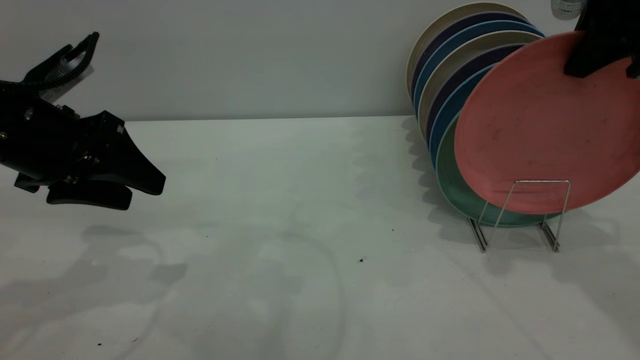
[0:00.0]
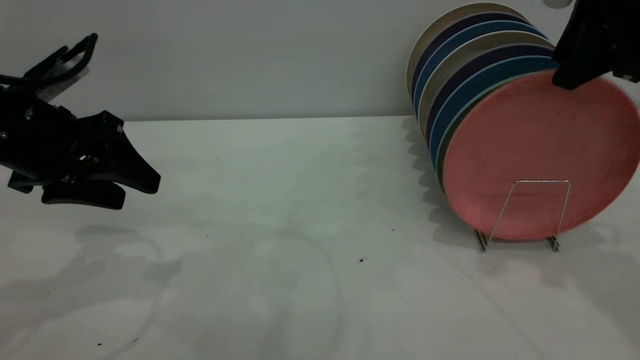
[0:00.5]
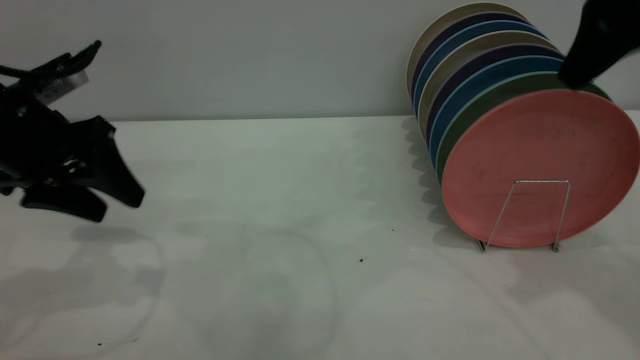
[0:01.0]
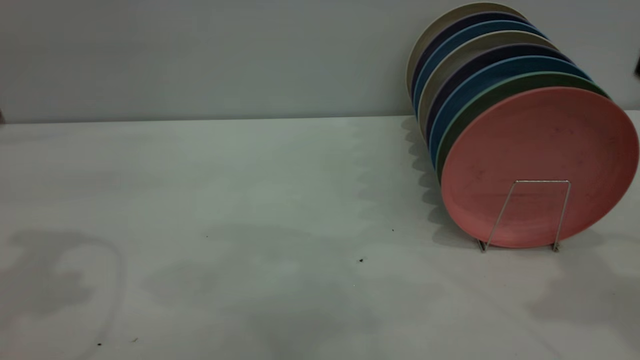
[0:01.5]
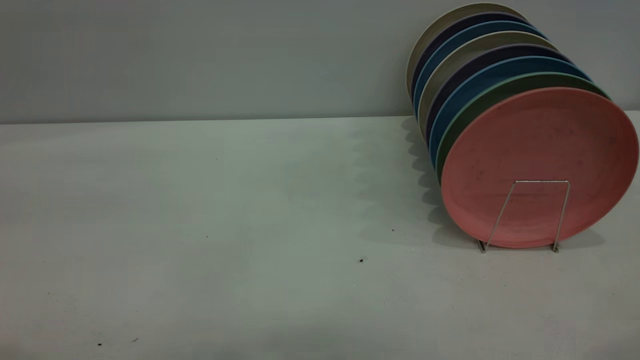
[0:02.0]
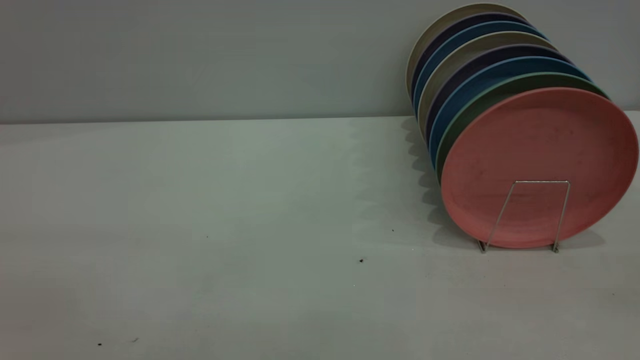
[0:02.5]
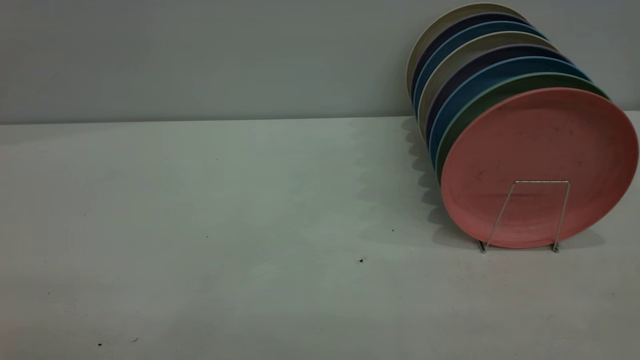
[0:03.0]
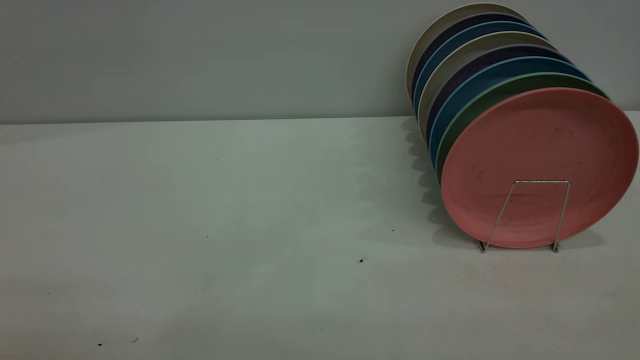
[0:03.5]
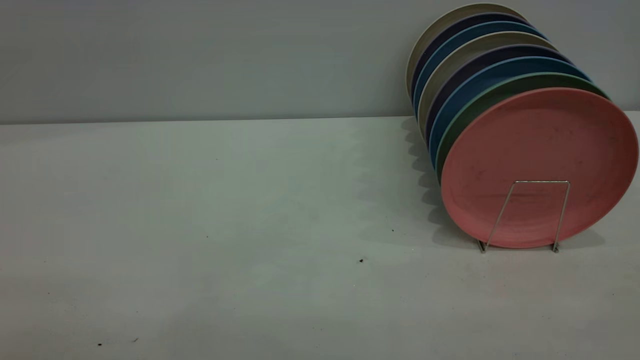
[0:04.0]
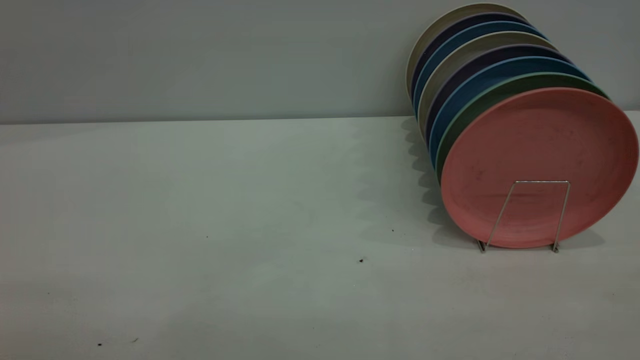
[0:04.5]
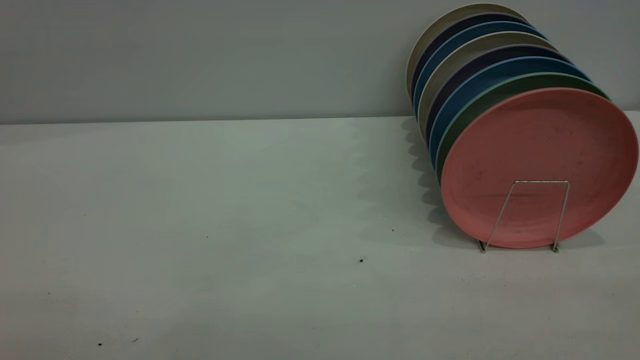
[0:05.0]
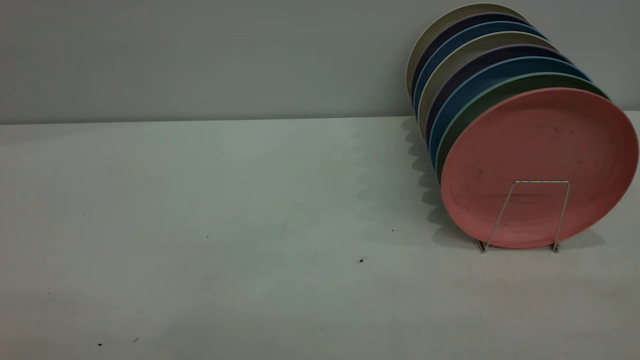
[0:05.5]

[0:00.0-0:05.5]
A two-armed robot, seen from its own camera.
Task of the whole recording: the left gripper grasp the pink plate, the left gripper pass the pink plate to the right gripper, and the right gripper place the pink plate on the plate rack.
0:00.0 to 0:02.0: The left gripper is displaced upward and backward by roughly 30 cm, while the right gripper heads backward and upward, covering approximately 25 cm, and opens.

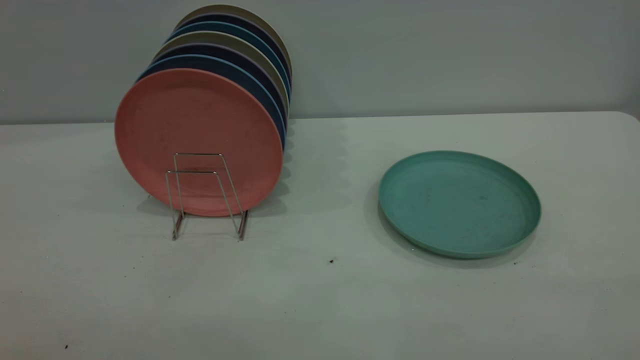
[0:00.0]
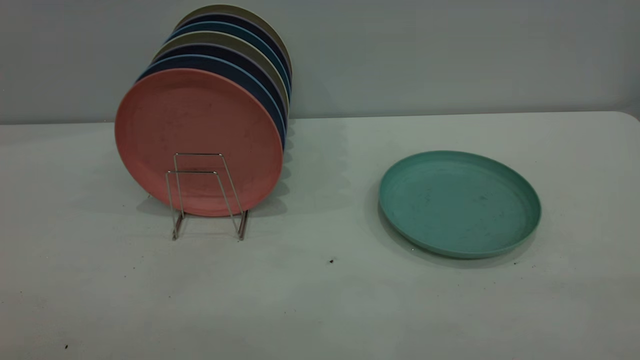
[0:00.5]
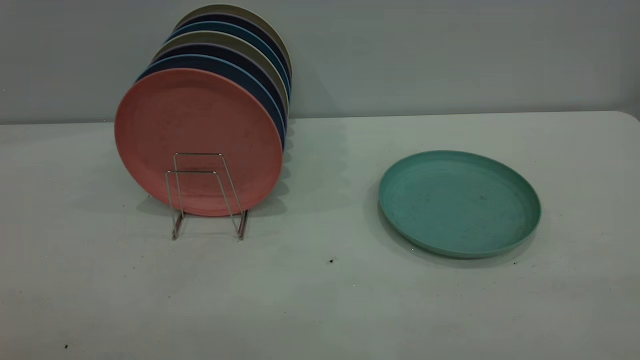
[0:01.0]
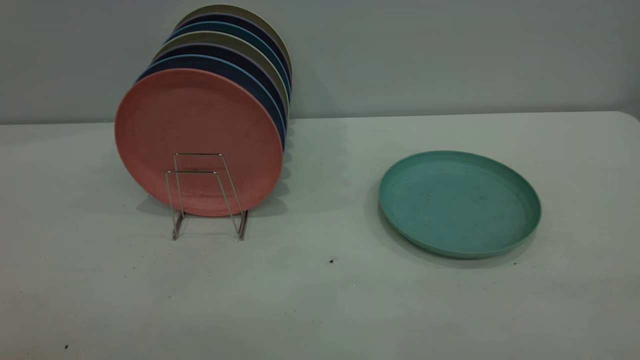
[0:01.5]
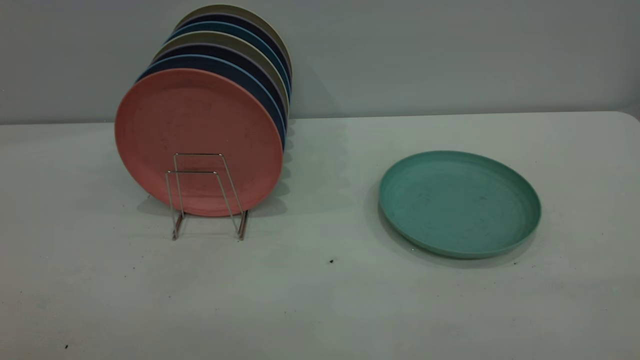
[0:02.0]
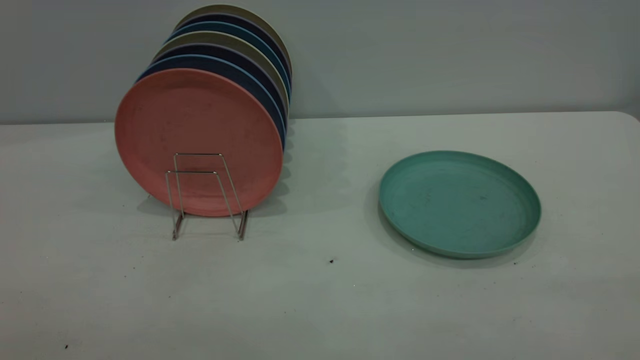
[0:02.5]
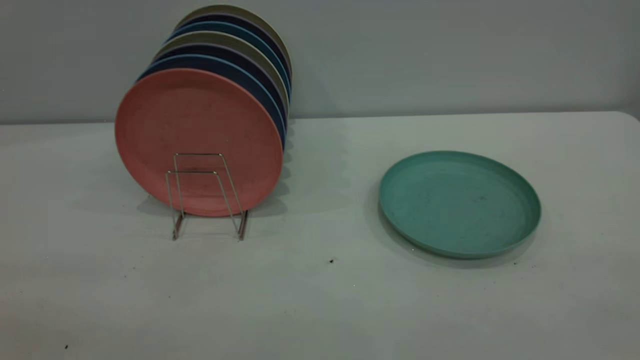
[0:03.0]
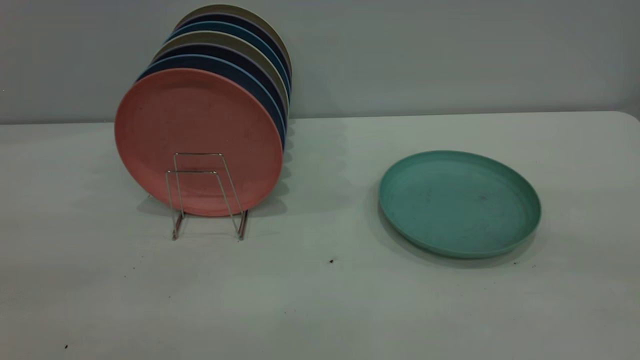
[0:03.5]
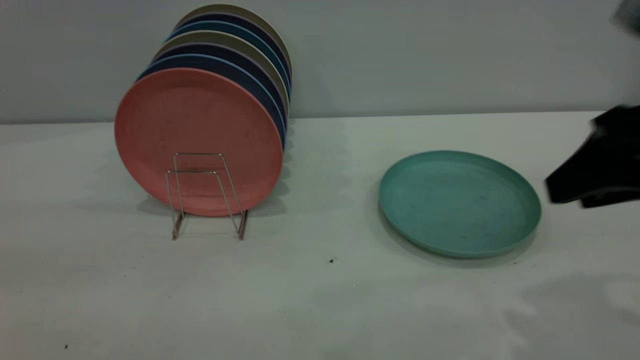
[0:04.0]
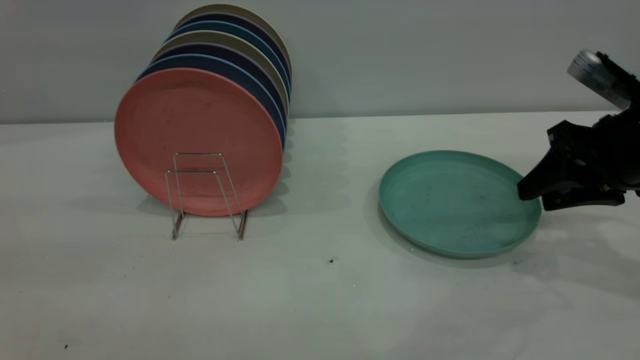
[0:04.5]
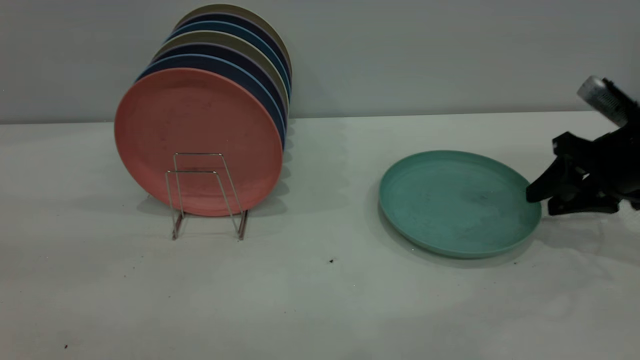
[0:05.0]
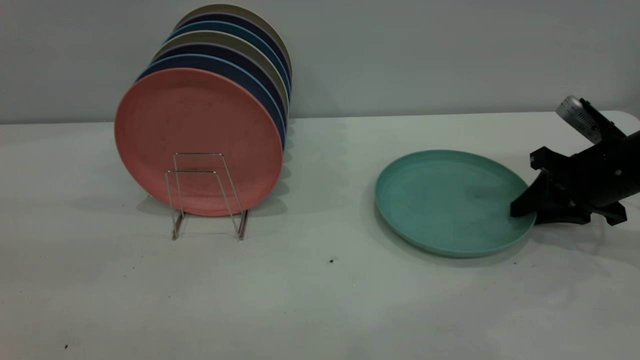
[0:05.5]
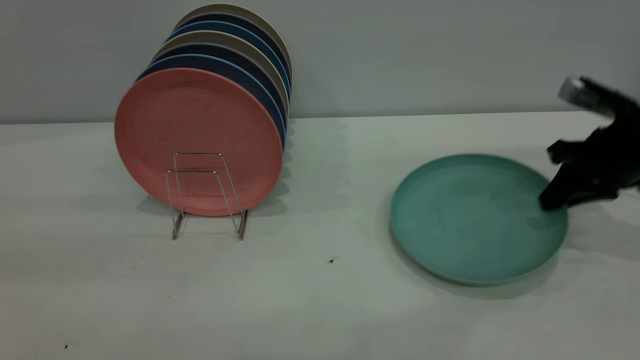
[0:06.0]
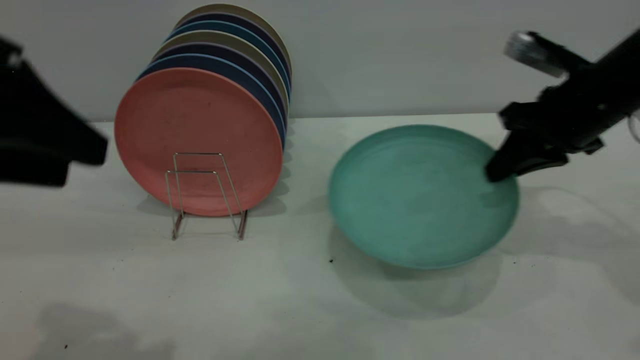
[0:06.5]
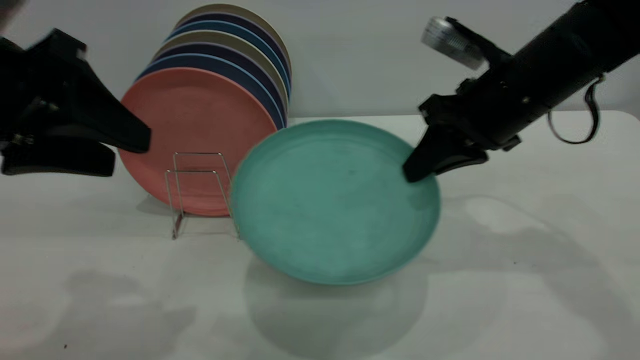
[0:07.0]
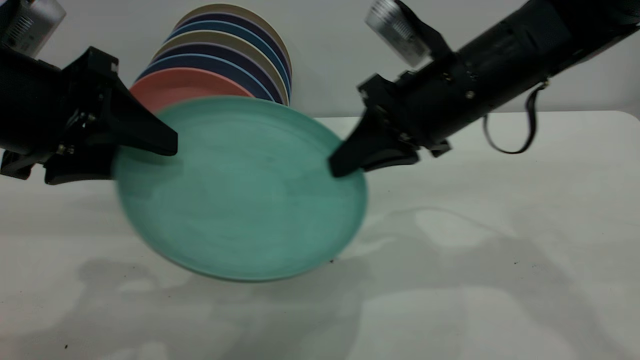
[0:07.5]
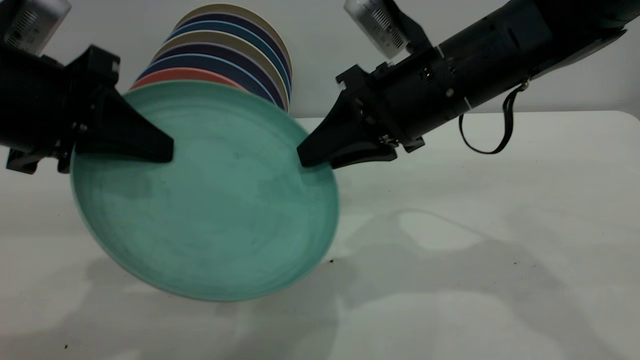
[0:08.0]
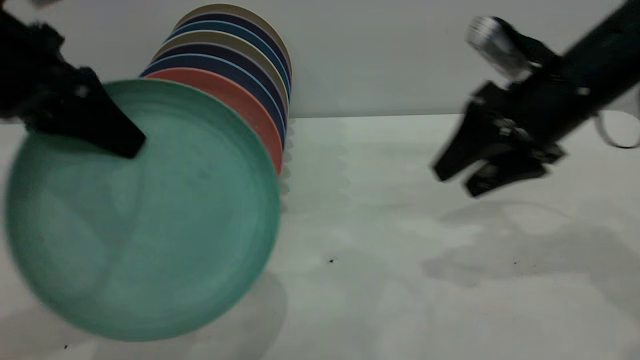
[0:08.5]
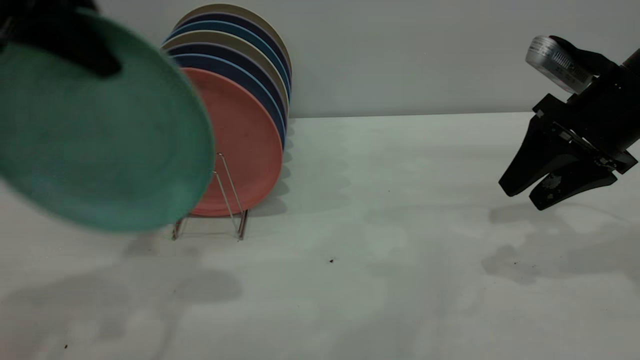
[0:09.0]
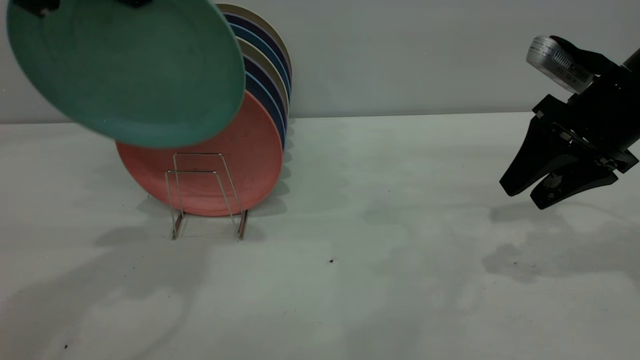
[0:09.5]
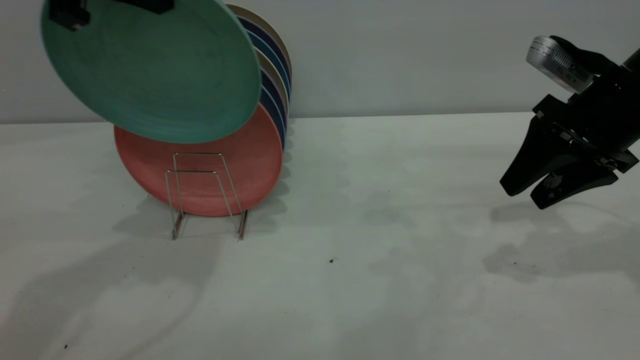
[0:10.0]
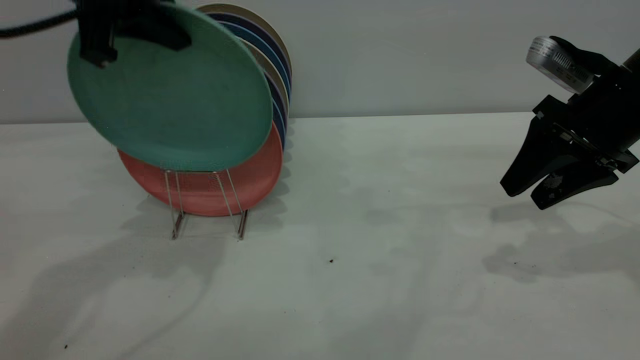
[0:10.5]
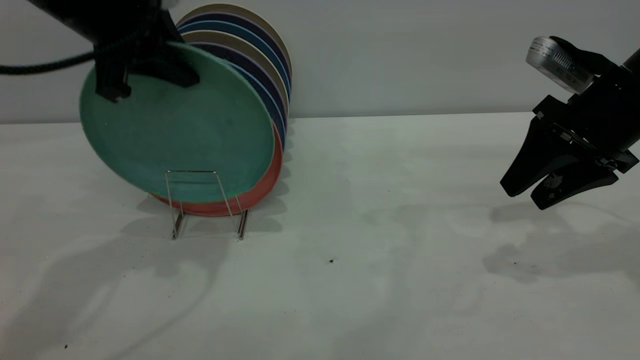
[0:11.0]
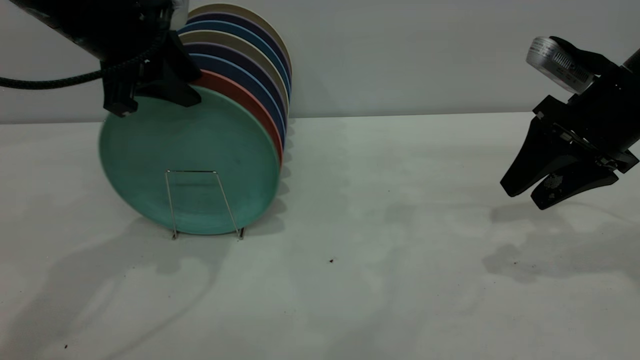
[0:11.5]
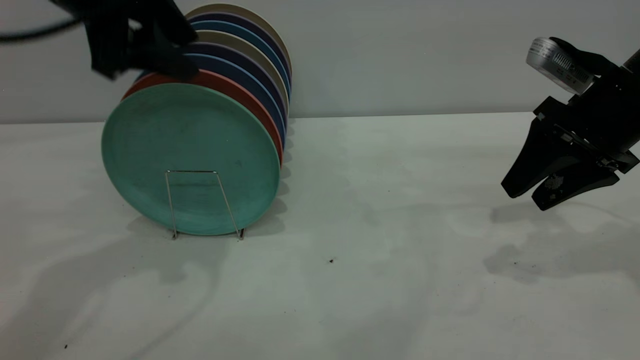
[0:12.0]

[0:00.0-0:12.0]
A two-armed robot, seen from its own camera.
Task of the whole recording: the right gripper grasp the green plate, the right gripper pass the green plate to the left gripper, and the left gripper place the green plate on the plate rack.
Step, 0:00.0 to 0:06.0: Pick up the plate with the right gripper.
Step, 0:06.5 to 0:08.0: Pass the plate from the right gripper to the left gripper.
Step, 0:08.5 to 0:12.0: Place the plate on the shelf.
0:00.0 to 0:02.0: Both grippers stay about where they are.
0:02.0 to 0:04.0: The right gripper travels forward and downward by roughly 30 cm.
0:04.0 to 0:06.0: The right gripper moves forward, downward and to the right, roughly 20 cm, and closes.
0:06.0 to 0:08.0: The left gripper travels forward and downward by approximately 15 cm, and closes its fingers. Meanwhile the right gripper travels to the left by approximately 20 cm, and opens.
0:08.0 to 0:10.0: The right gripper heads to the right, covering roughly 15 cm, and opens its fingers. The left gripper moves upward and forward, about 15 cm.
0:10.0 to 0:12.0: The left gripper opens up.

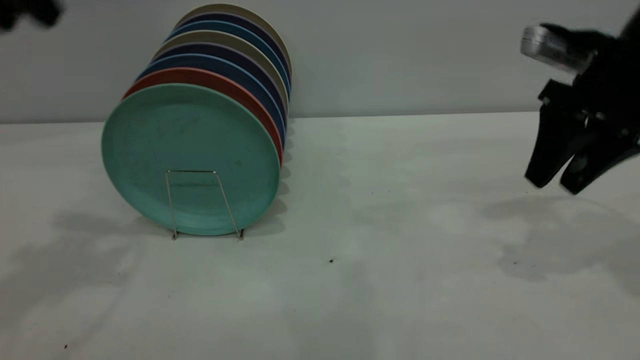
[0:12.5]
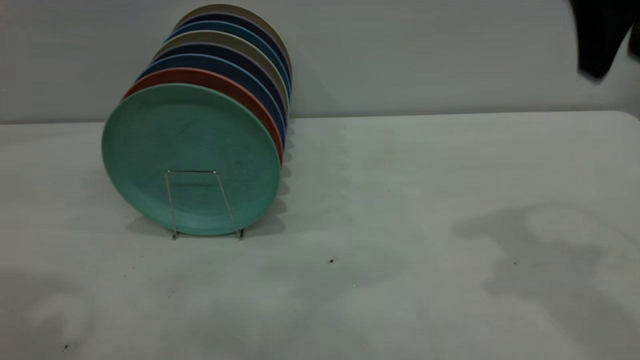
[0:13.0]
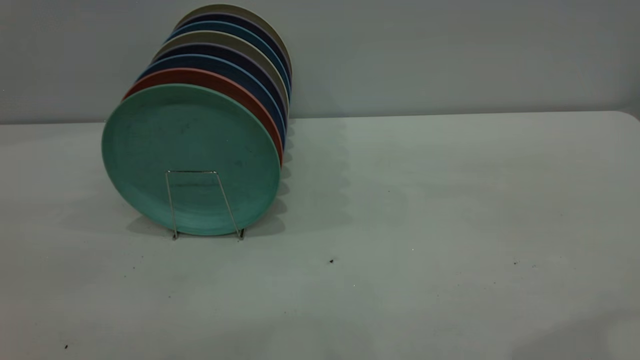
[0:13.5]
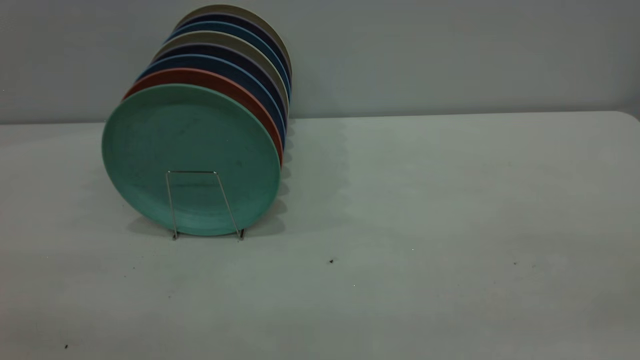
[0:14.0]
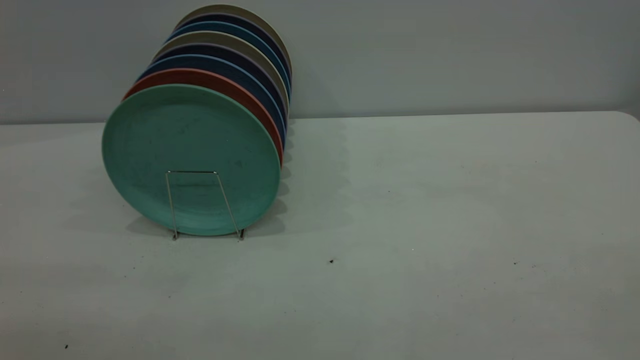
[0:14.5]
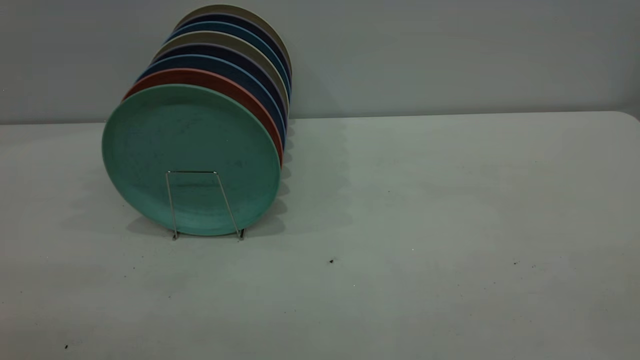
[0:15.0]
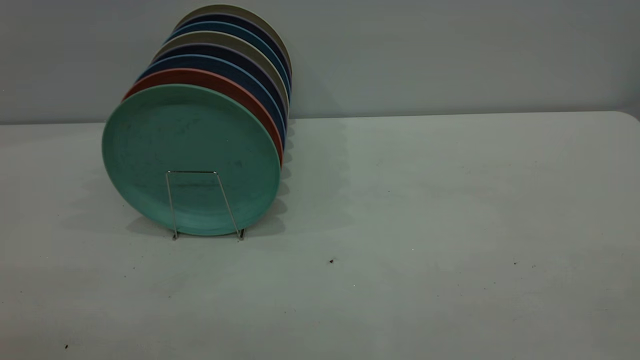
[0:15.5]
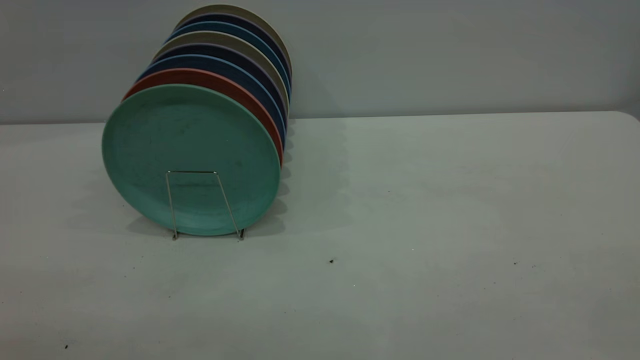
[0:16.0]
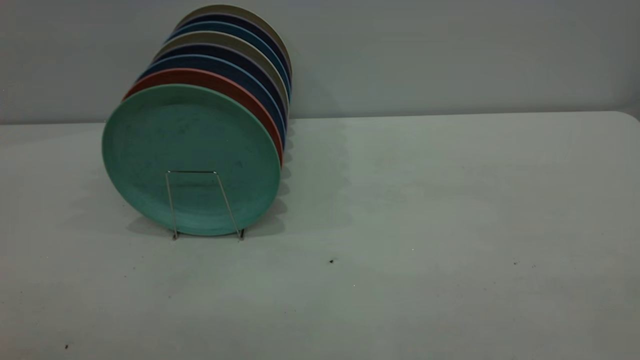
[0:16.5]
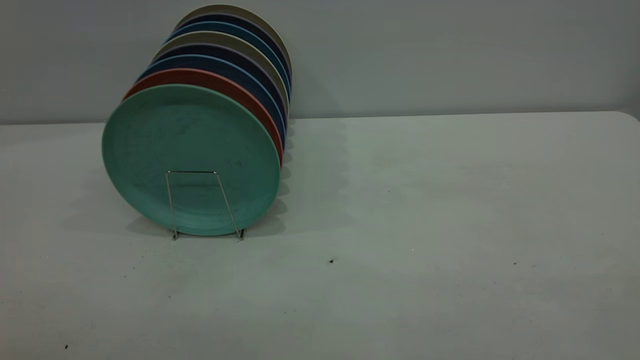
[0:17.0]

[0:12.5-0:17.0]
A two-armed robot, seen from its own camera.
Task of the whole recording: the right gripper grasp the green plate, the right gripper pass the green plate to the left gripper, and the left gripper place the green plate on the plate rack.
0:12.5 to 0:14.5: The grippers both shift backward by approximately 35 cm.
